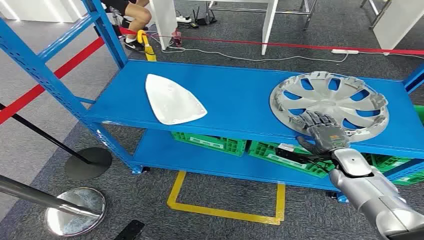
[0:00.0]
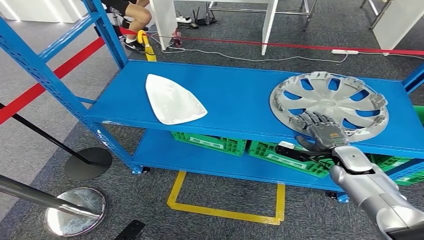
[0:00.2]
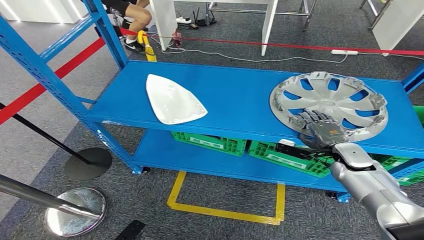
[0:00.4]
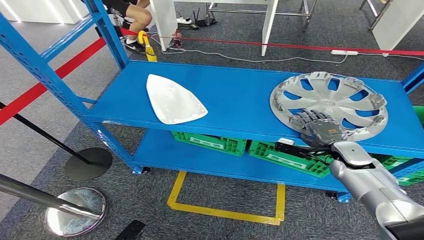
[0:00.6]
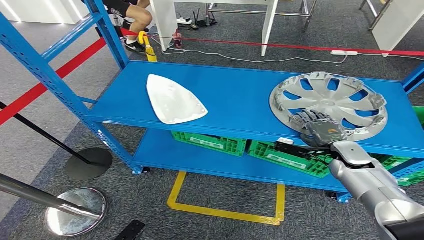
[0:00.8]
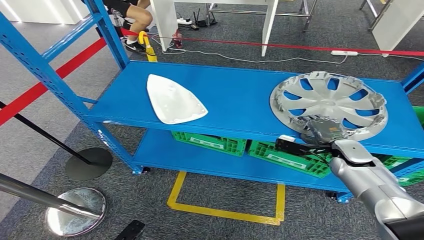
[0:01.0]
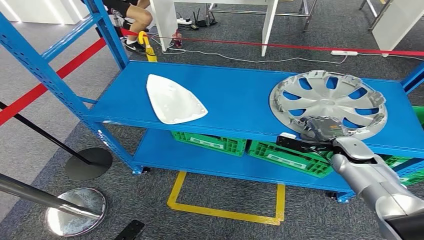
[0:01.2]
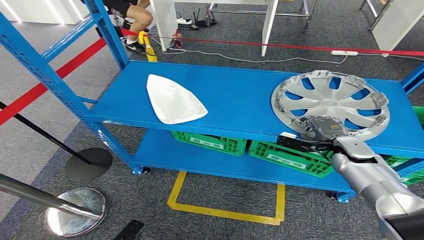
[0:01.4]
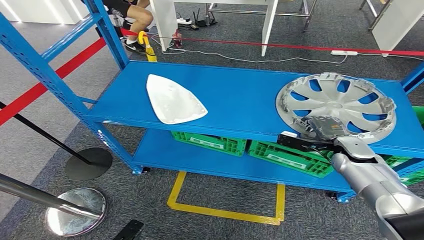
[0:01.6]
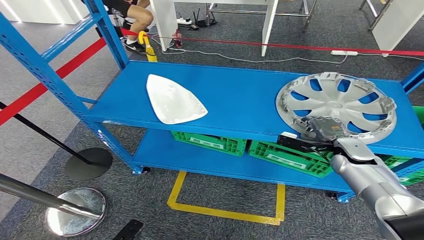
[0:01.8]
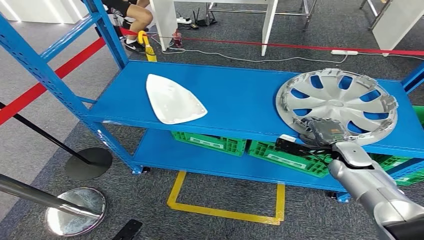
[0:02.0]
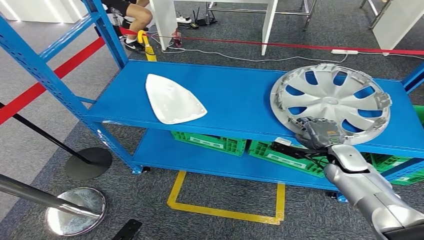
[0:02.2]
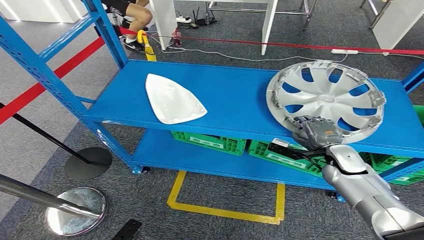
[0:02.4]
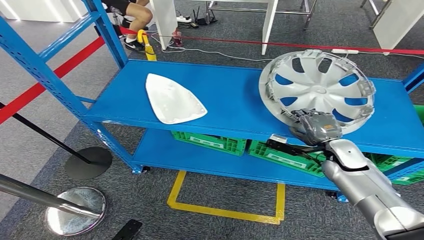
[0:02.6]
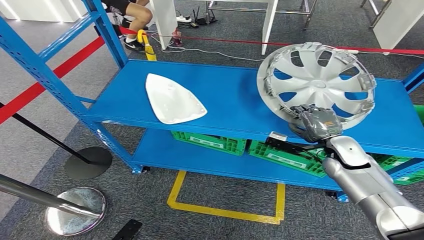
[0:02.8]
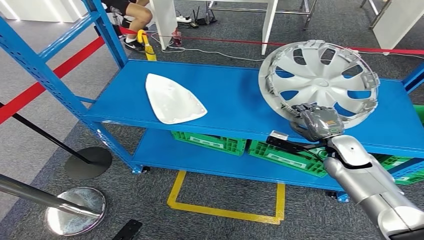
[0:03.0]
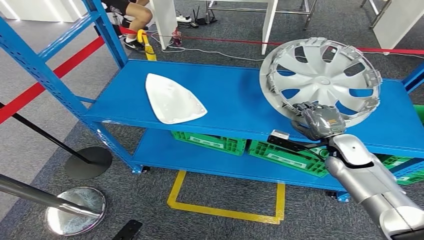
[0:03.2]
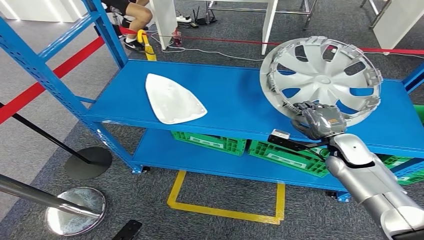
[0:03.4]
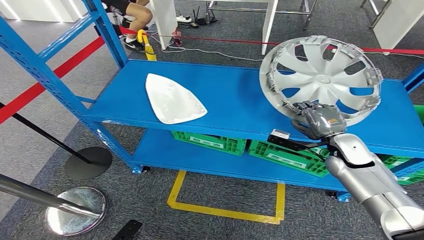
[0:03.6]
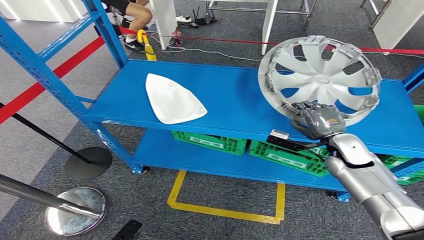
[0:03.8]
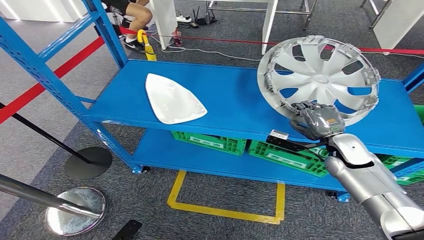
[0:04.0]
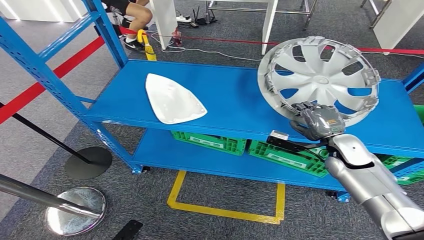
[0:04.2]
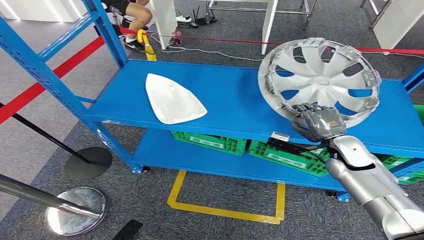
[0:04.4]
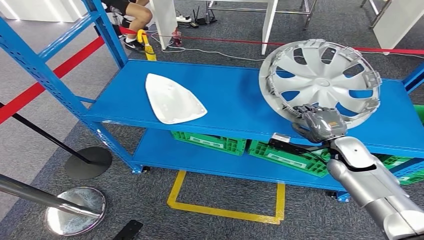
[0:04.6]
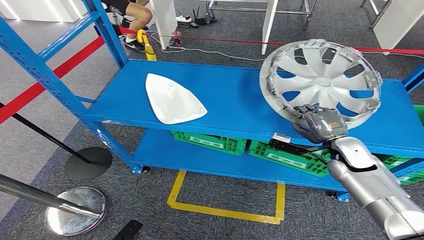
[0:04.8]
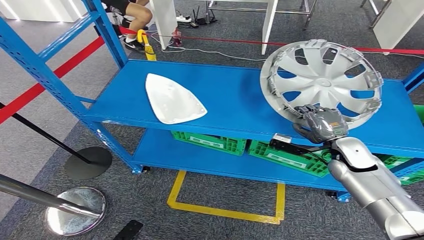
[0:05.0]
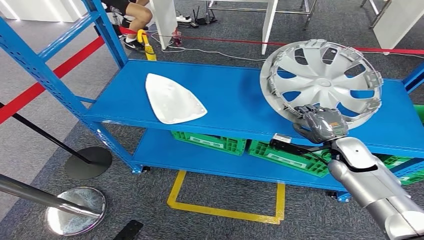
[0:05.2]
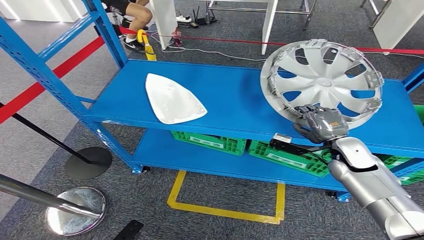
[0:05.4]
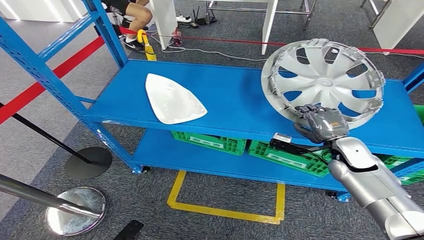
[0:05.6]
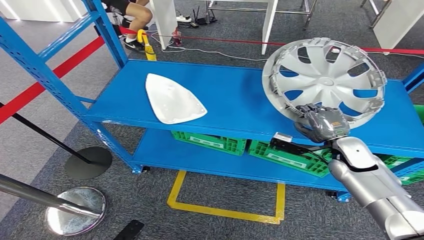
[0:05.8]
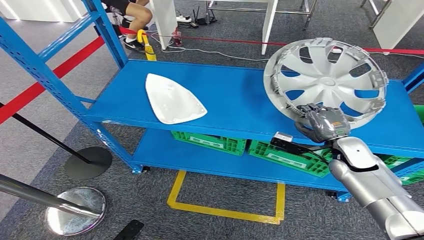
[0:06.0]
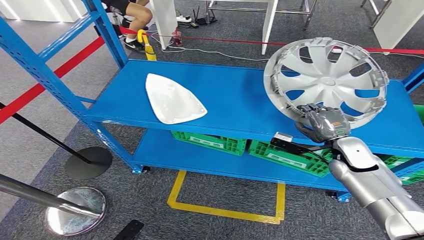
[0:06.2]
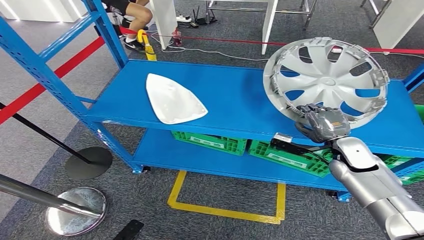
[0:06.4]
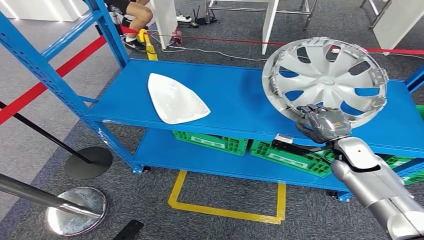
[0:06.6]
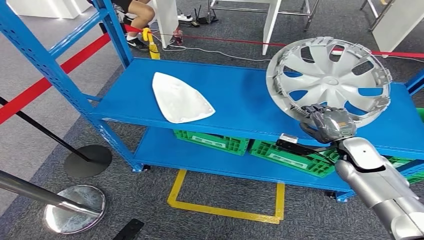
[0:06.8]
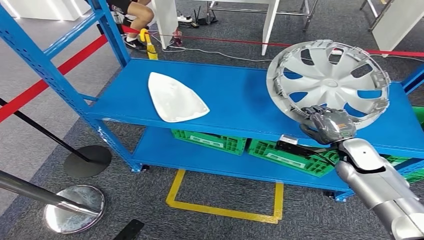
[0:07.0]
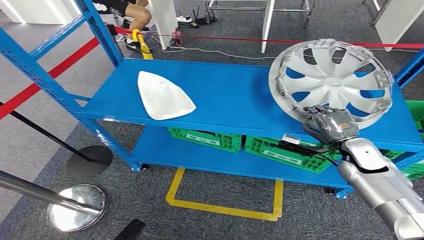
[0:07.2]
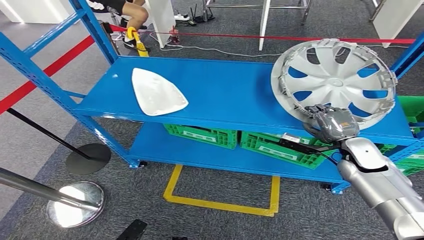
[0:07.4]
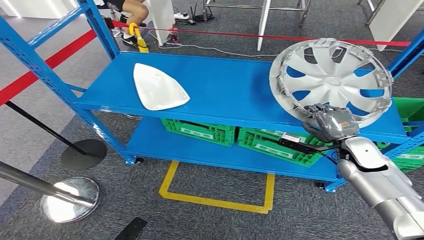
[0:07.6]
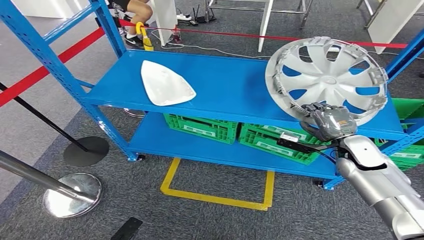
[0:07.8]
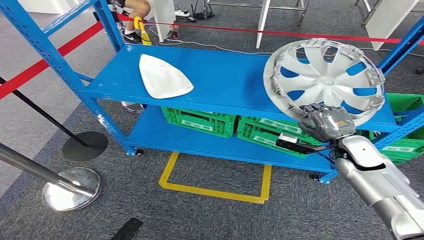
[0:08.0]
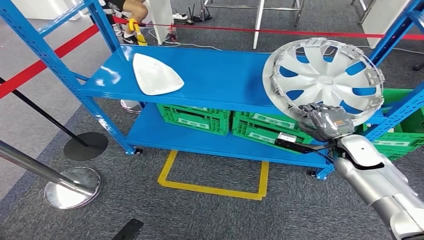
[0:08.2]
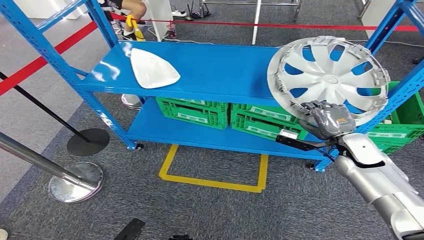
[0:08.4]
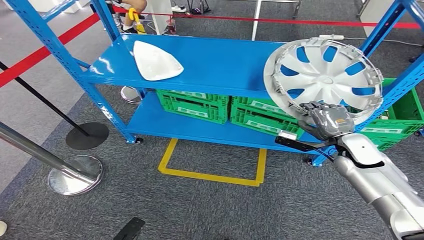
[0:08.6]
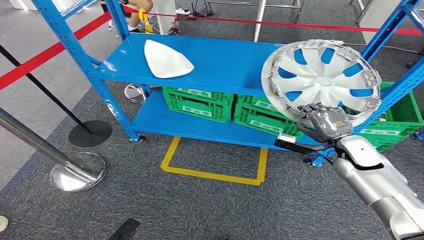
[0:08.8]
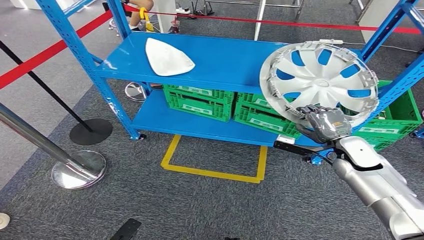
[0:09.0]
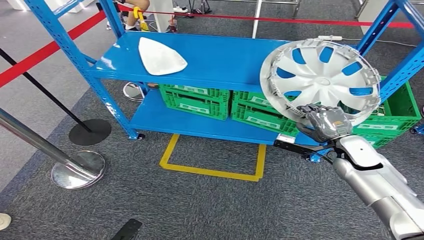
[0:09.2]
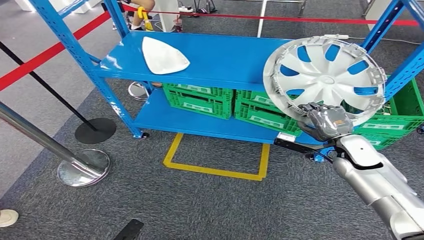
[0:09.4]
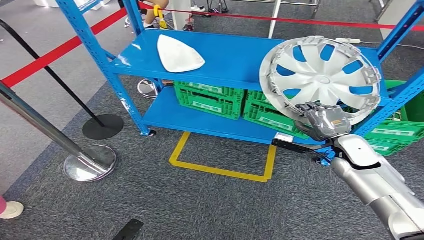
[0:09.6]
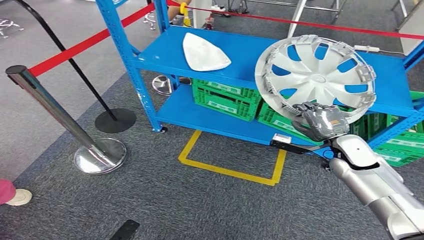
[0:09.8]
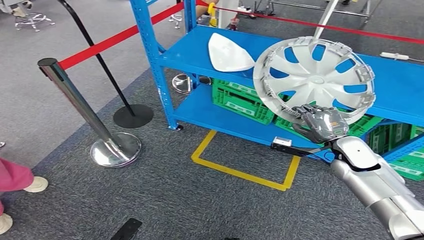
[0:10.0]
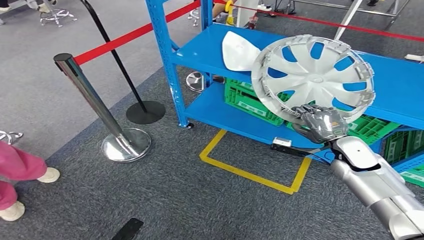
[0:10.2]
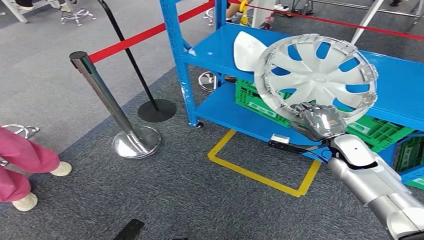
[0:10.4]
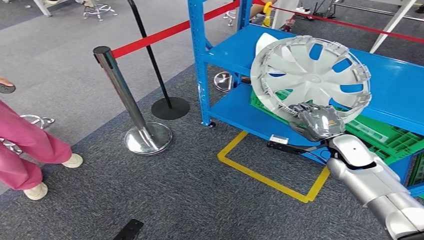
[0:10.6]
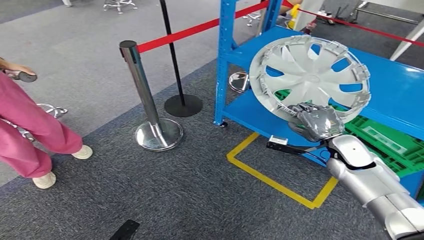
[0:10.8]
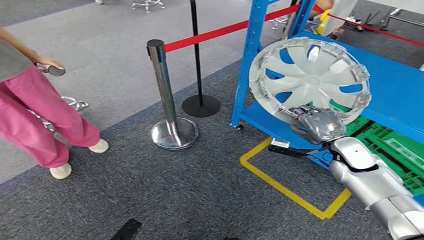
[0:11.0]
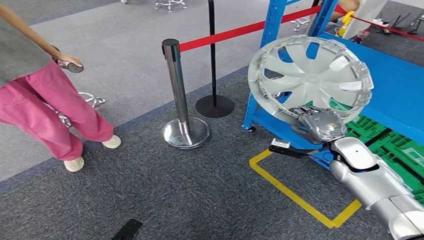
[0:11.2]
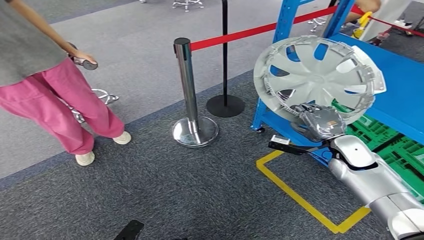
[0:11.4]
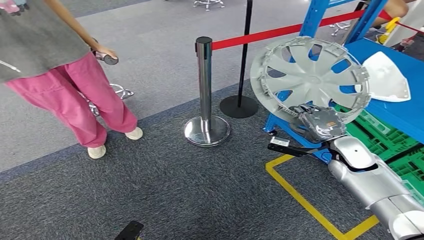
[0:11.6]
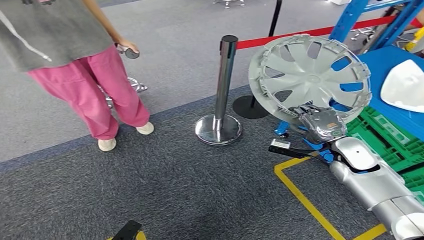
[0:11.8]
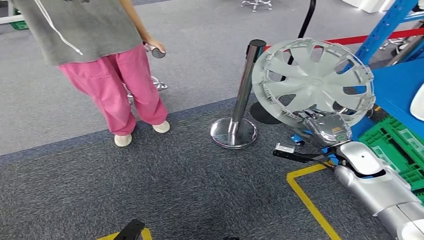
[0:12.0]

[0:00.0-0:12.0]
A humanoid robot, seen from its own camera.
Step, 0.0 to 4.4 s: Pick up the small component from the shelf.
3.0 to 6.0 s: Neither hand changes place.

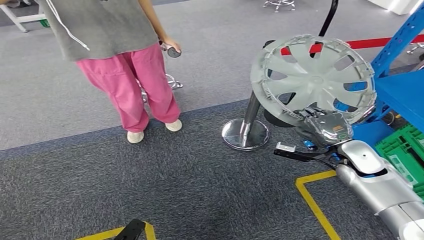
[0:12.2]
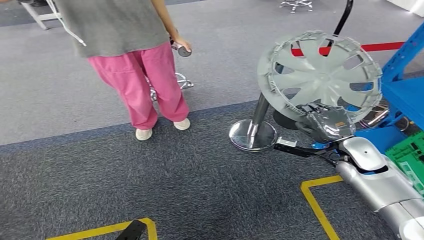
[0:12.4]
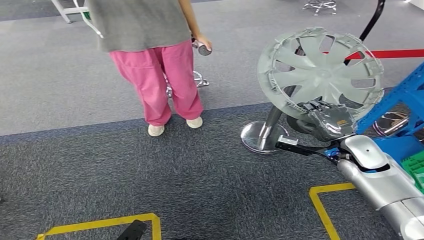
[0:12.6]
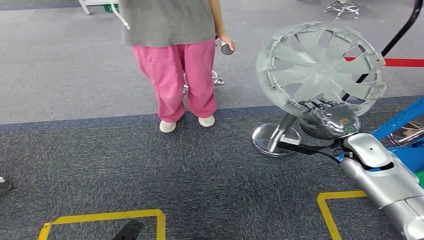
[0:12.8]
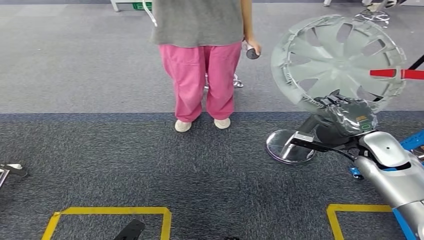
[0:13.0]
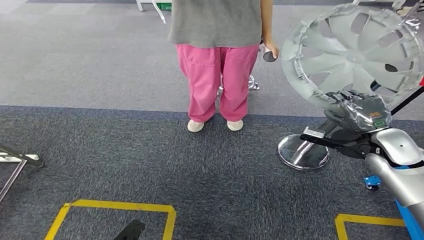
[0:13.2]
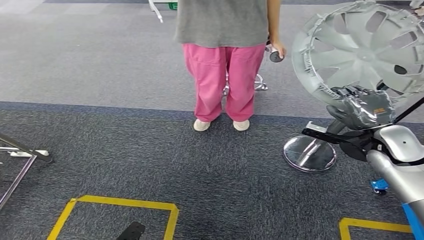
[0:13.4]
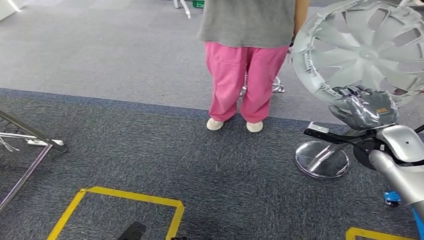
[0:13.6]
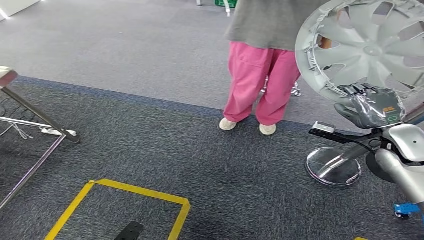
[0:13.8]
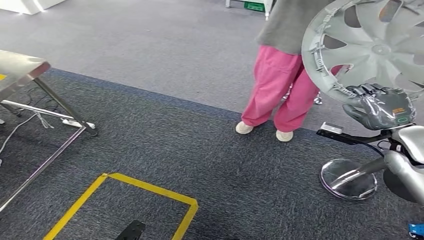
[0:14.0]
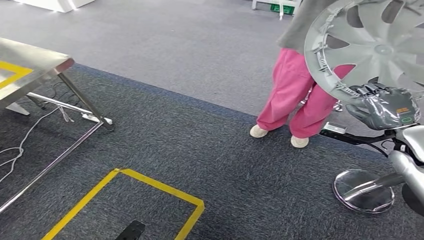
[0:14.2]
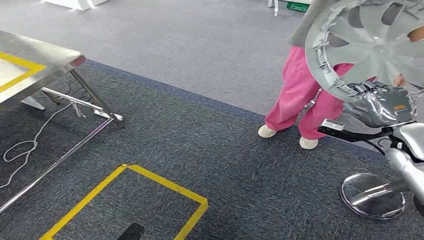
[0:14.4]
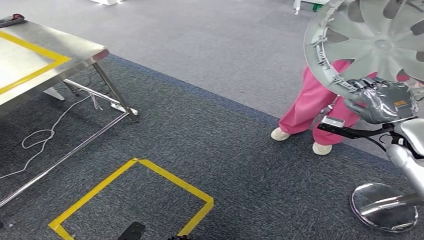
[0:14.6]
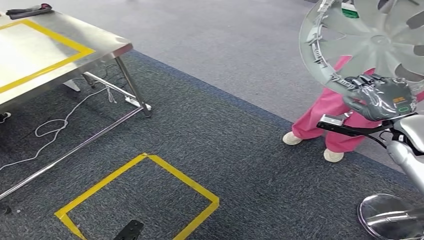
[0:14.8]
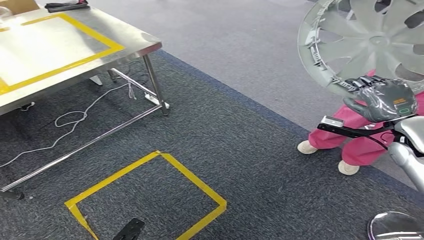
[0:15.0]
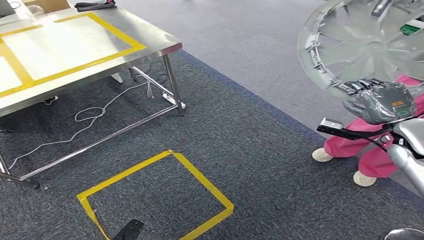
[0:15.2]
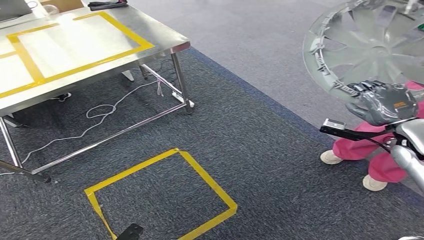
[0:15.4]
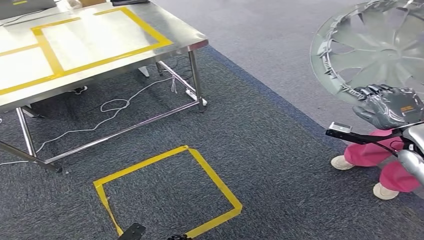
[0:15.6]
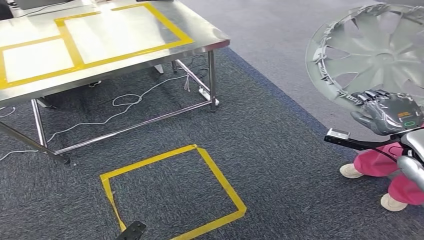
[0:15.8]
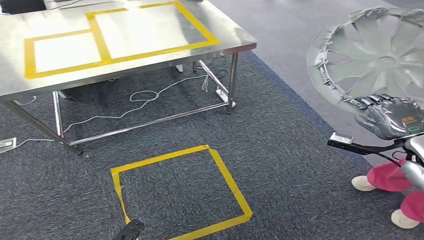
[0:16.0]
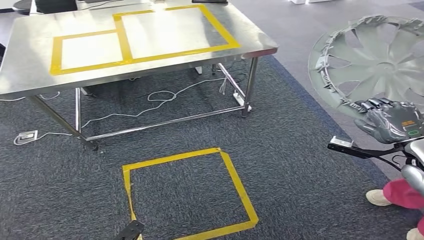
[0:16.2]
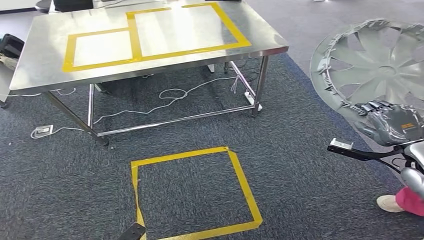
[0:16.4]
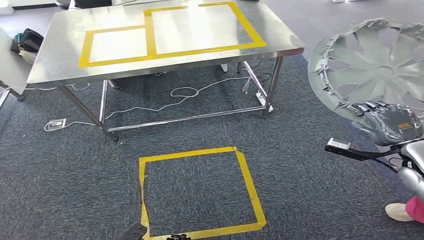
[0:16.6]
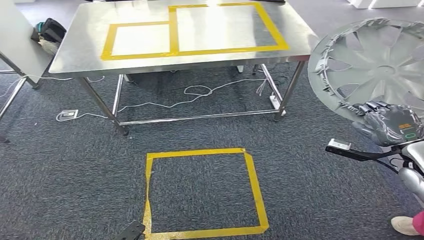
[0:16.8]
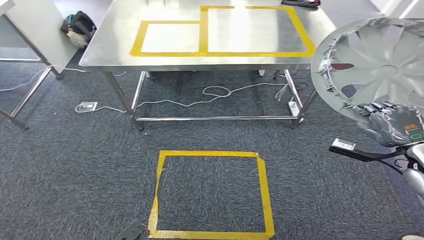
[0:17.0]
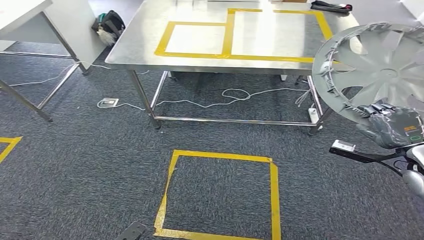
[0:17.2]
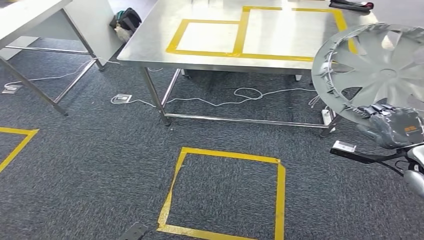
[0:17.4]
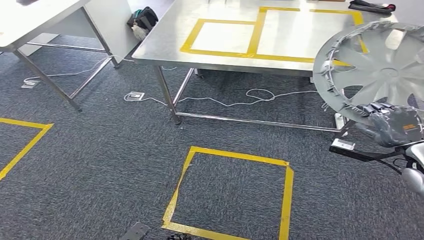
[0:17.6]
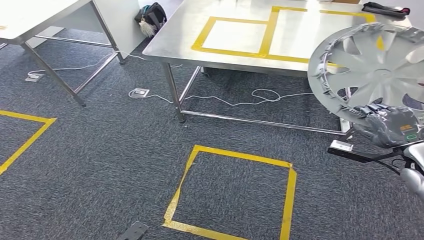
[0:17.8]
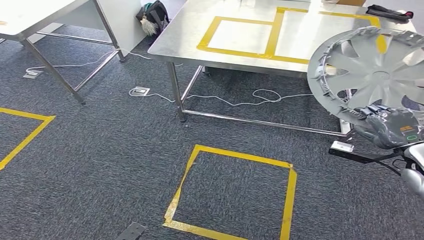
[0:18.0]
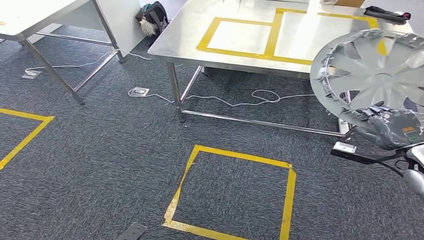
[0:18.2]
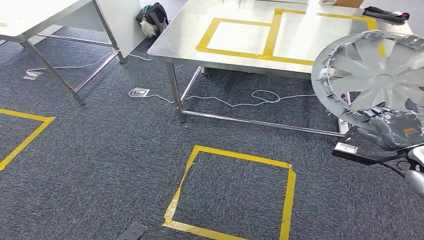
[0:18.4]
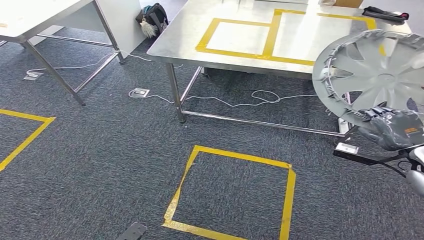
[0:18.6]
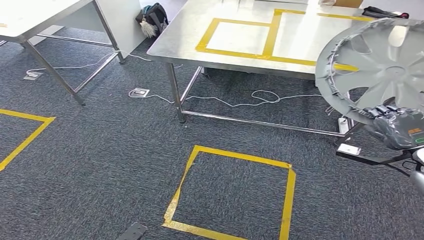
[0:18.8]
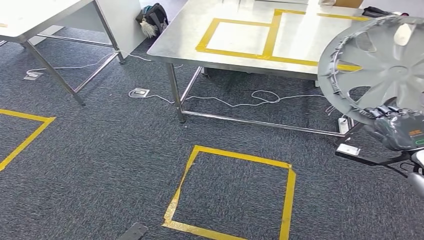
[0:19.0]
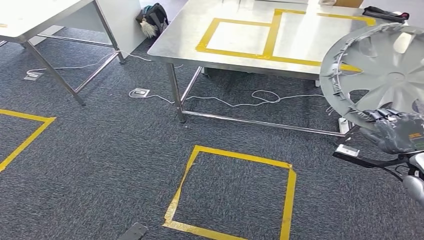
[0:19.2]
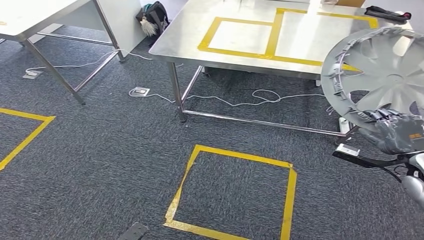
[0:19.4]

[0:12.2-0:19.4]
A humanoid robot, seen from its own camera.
Step, 12.2 to 19.0 s: Move the small component to the workbench.
18.0 to 19.4 s: The hands move only a little.
